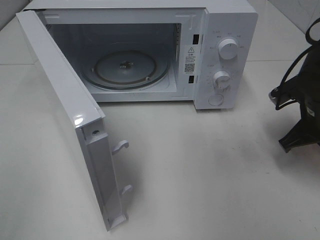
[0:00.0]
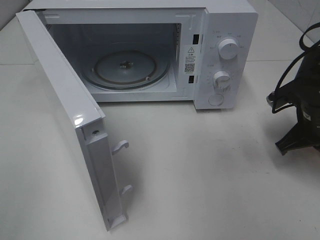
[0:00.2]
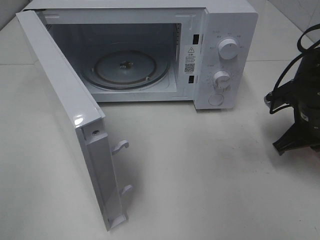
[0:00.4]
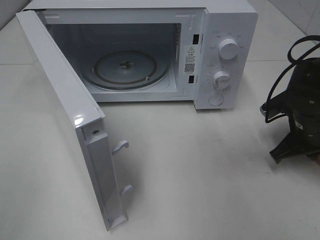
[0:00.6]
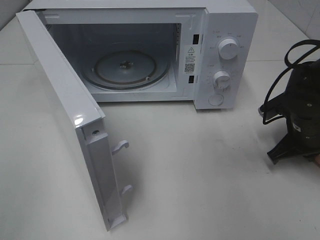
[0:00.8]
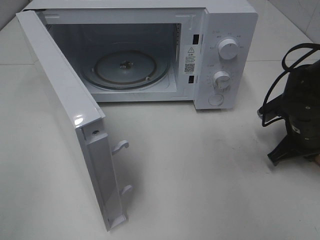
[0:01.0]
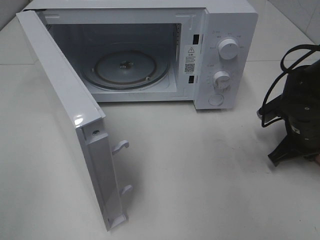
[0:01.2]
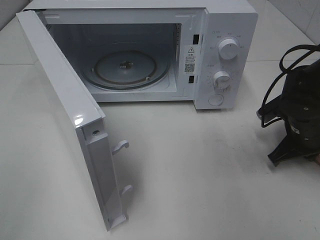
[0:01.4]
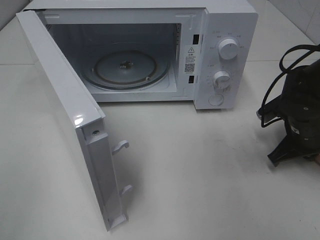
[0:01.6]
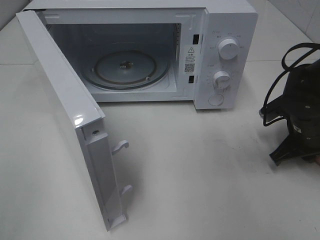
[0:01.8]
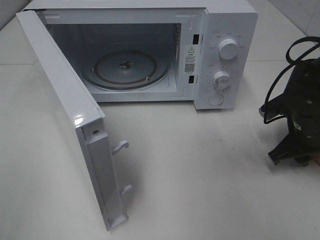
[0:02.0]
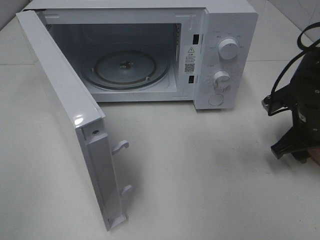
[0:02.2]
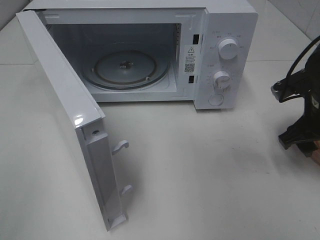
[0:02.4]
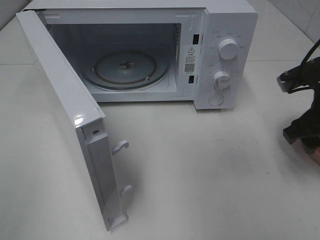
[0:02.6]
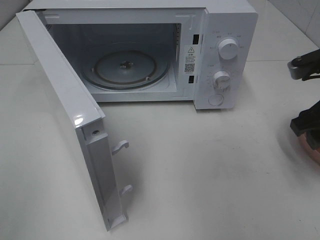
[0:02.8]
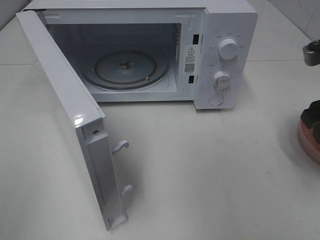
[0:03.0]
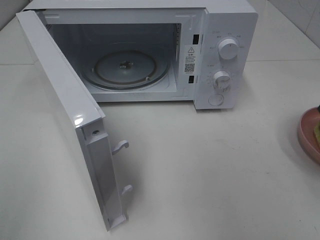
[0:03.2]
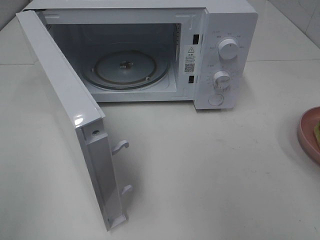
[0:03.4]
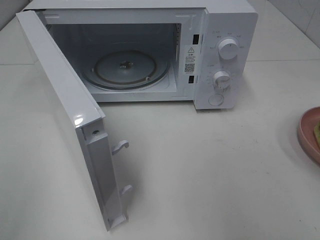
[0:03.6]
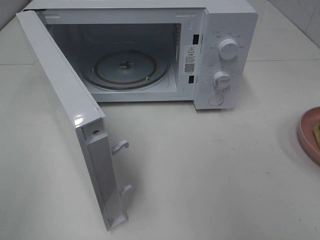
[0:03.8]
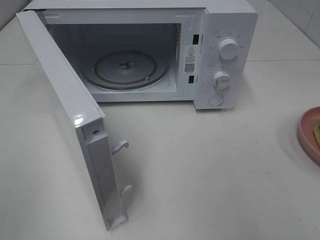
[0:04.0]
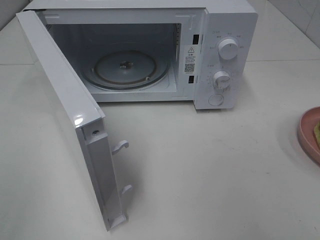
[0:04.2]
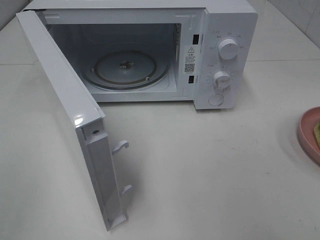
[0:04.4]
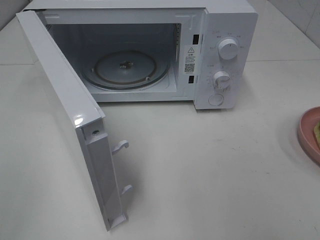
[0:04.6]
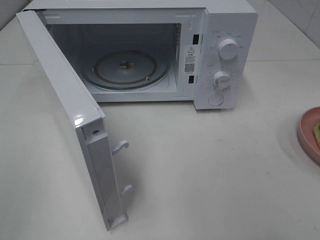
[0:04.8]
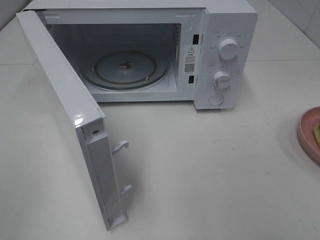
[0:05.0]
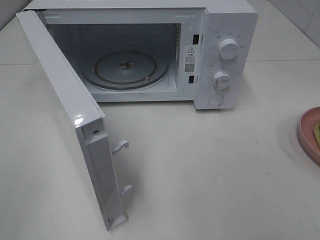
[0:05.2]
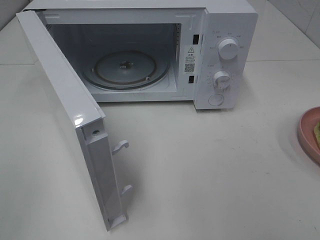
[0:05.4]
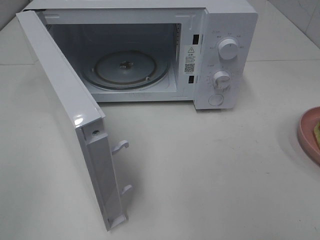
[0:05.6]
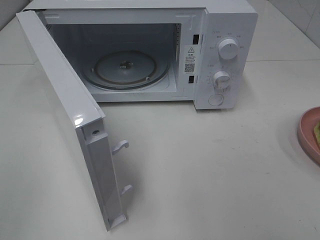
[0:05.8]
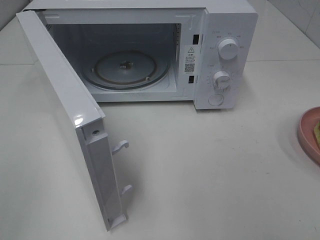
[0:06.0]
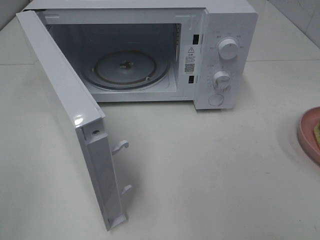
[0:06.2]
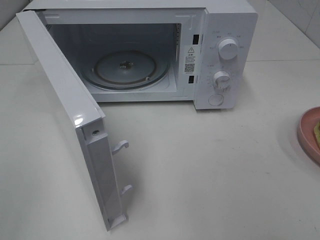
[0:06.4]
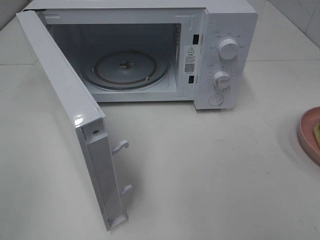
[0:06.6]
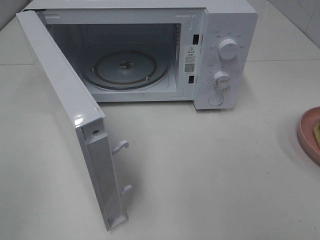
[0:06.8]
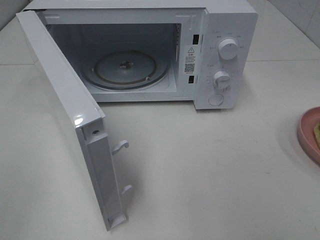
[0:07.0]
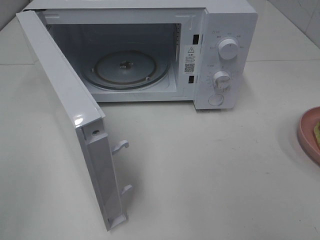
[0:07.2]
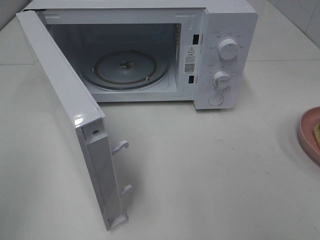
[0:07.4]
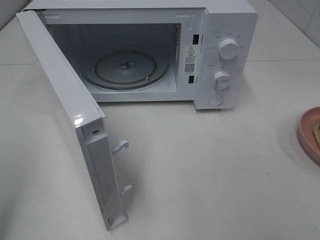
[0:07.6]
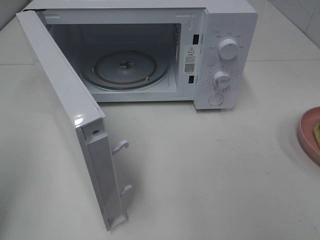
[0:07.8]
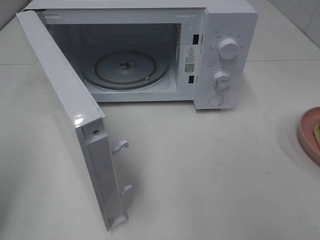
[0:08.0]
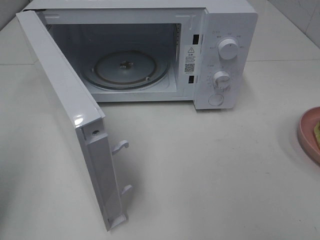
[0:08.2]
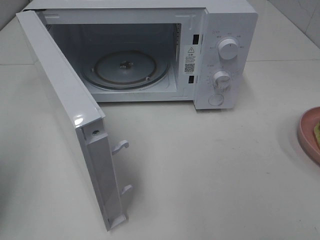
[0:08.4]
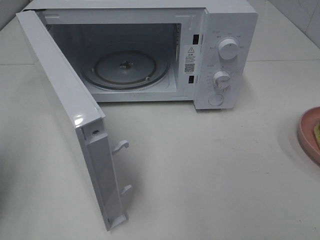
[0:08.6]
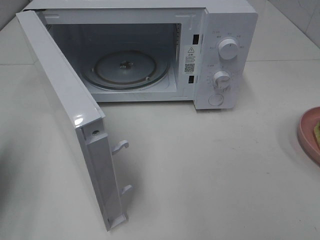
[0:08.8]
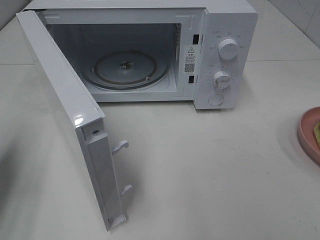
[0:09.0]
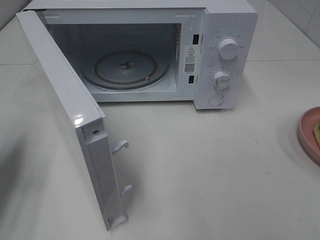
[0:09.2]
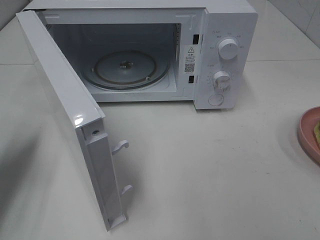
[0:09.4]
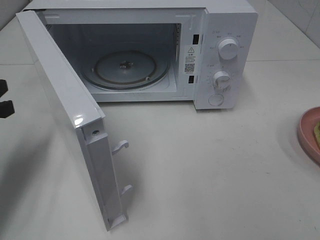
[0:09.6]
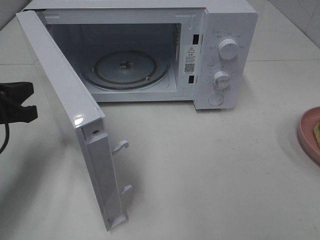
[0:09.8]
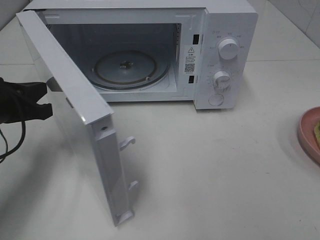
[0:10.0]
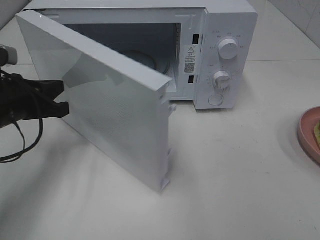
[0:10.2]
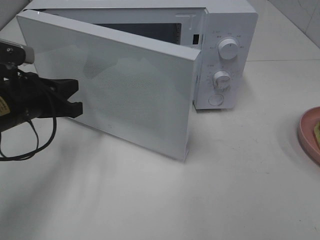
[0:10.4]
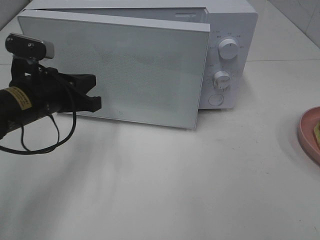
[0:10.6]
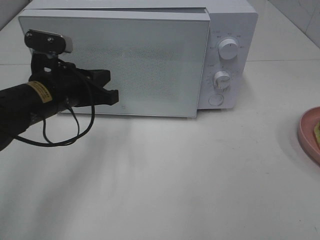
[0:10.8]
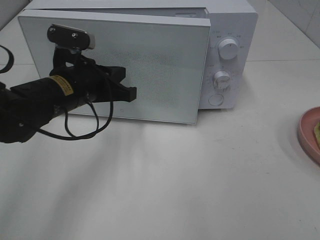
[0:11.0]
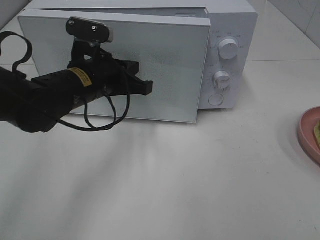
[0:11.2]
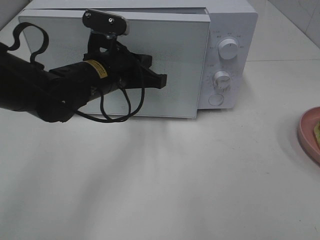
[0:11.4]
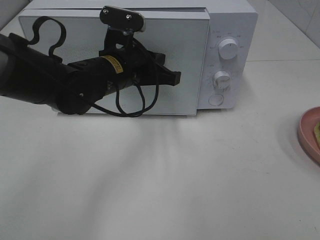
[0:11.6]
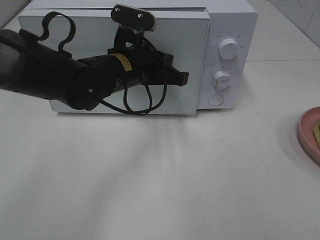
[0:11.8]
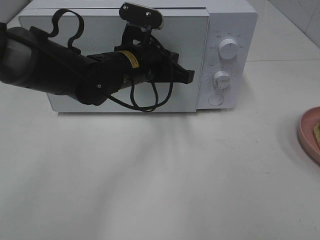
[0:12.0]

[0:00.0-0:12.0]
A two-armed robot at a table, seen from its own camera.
Task of the whole recording: Heat Sandwich.
Step, 0.0 to 2.4 s: Right hand: place the plate on the table.
0.0 to 1.6 s: There are only small adjustments of the grippers.
1.6 to 3.0 s: The right gripper travels upward and backward by about 20 cm, and opens.
3.0 to 4.4 s: The right gripper shifts some 20 cm backward.
7.6 to 9.0 s: The left gripper is displaced forward and downward by approximately 15 cm, and closes its fingers.
9.0 to 10.4 s: The left gripper shifts about 15 cm to the right and forward.
10.4 to 12.0 s: The left gripper is displaced to the right by some 15 cm.

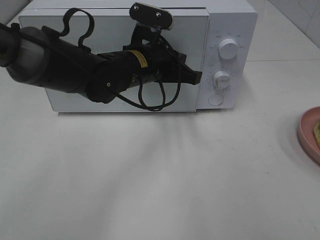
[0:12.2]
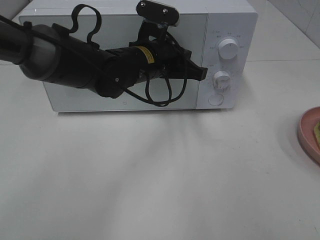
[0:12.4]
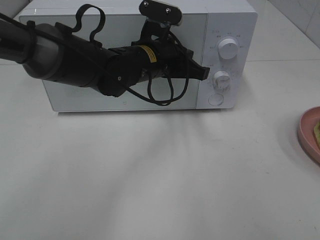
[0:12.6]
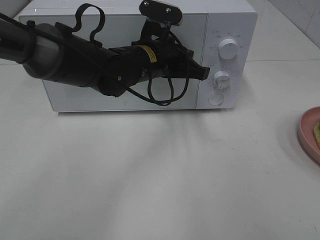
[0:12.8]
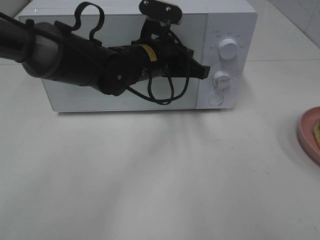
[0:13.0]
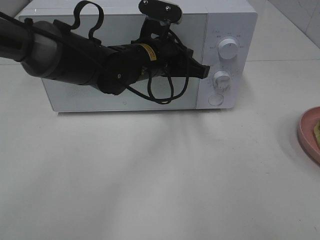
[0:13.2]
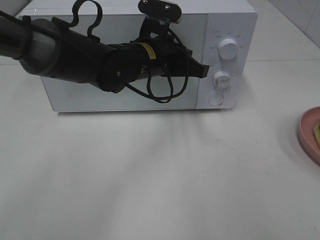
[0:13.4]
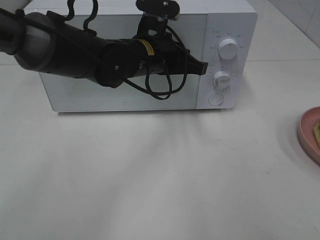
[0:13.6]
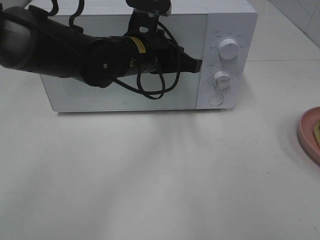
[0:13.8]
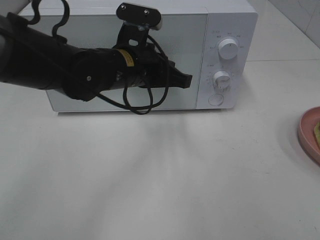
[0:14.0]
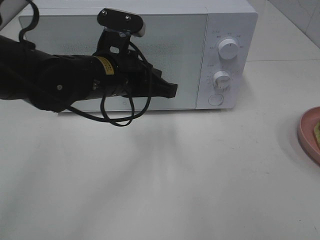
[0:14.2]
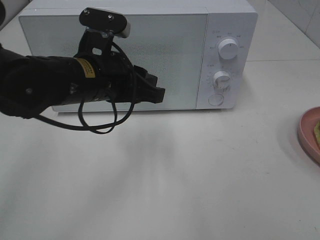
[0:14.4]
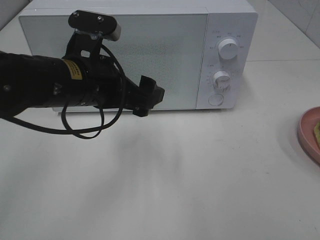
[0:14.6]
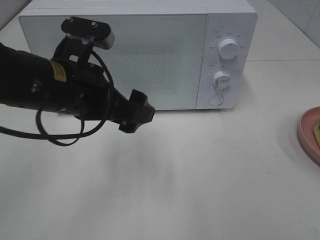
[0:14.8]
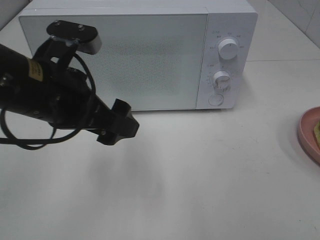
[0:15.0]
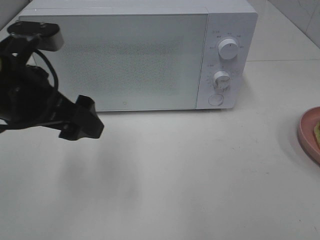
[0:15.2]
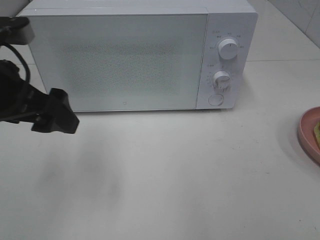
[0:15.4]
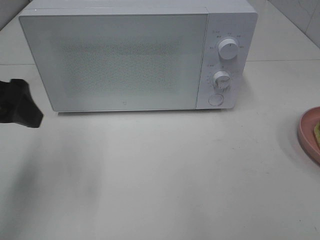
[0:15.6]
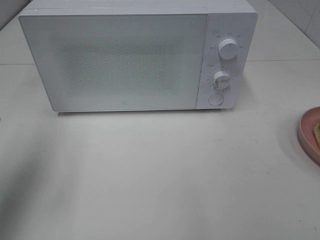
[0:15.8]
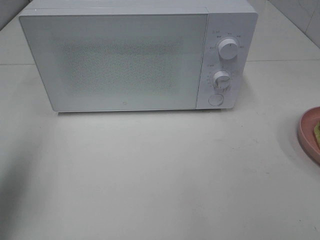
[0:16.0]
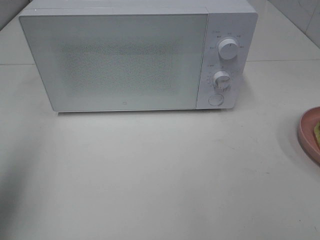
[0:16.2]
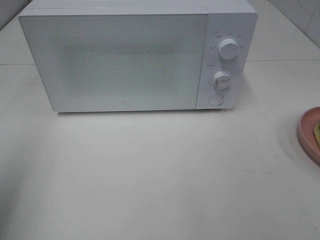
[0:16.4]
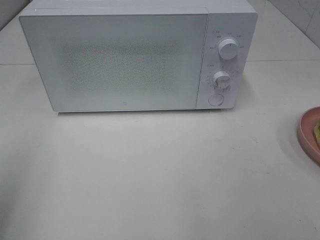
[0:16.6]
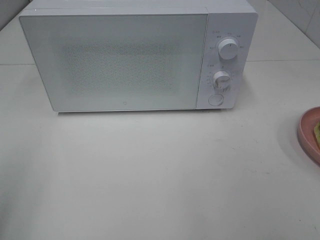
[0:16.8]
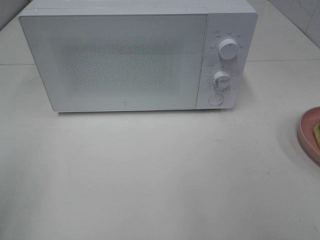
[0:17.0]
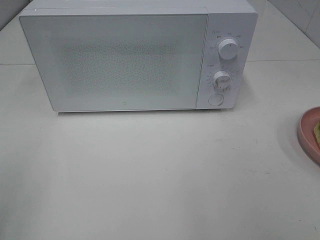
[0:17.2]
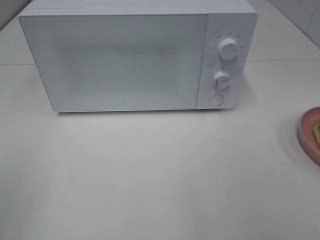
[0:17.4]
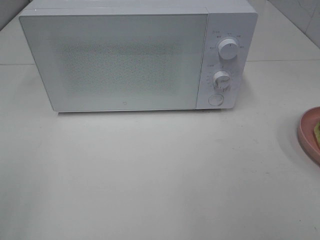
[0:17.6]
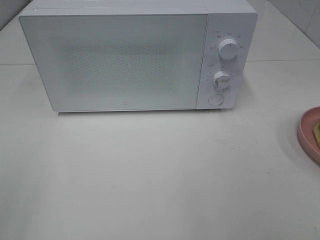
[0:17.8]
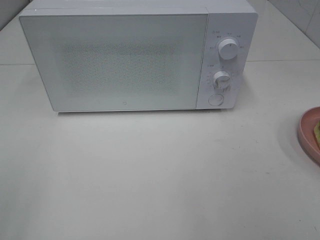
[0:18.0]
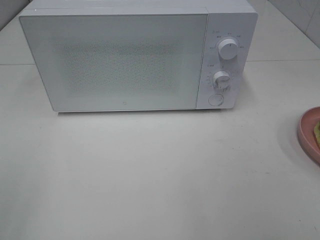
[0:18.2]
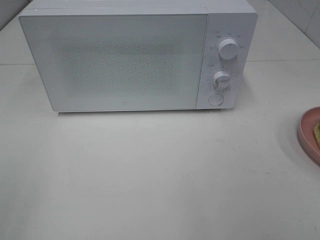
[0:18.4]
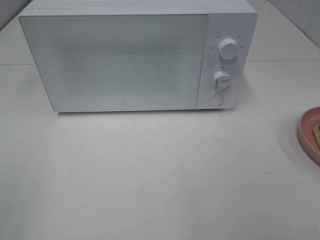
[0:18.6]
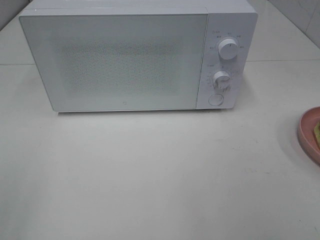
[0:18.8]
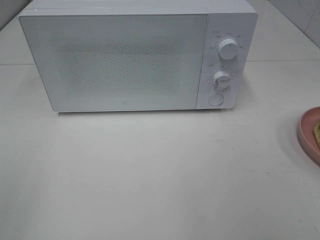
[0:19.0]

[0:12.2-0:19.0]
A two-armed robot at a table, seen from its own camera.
Task of the whole recording: Heat Sandwich.
12.2 to 13.6 s: The grippers move only a little.
13.6 to 15.0 s: The left gripper shifts about 20 cm backward and to the left, and opens.
15.0 to 16.2 s: The left gripper heads to the left and upward, covering approximately 20 cm.
16.2 to 17.6 s: The left gripper moves backward, roughly 15 cm.
17.6 to 19.0 s: Both grippers stay about where they are.

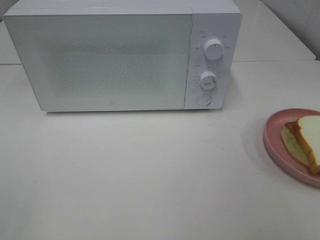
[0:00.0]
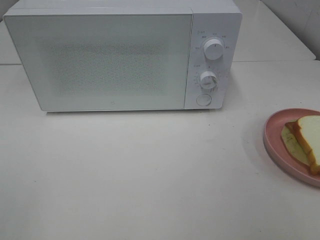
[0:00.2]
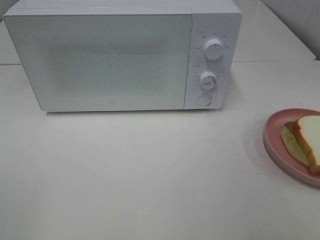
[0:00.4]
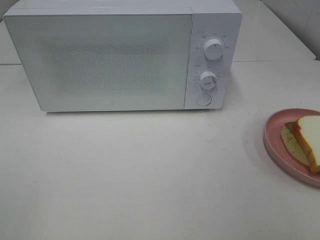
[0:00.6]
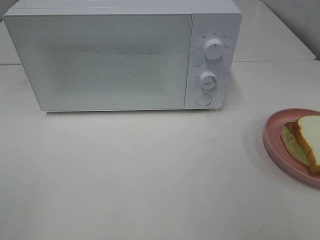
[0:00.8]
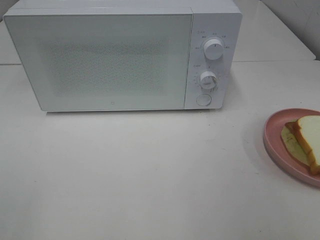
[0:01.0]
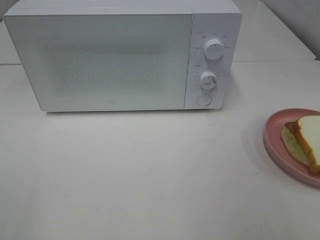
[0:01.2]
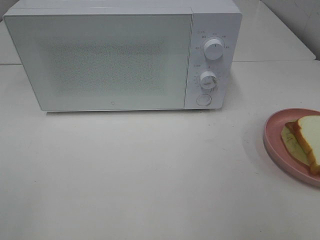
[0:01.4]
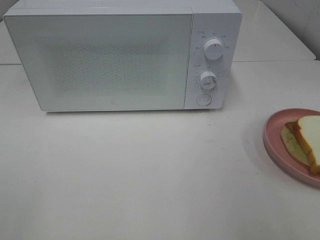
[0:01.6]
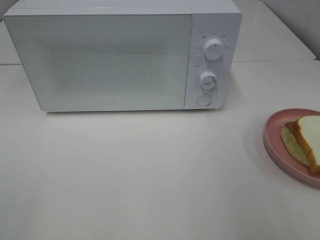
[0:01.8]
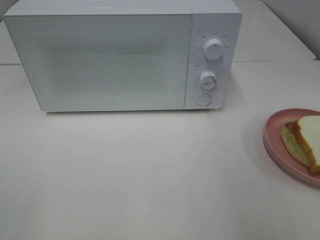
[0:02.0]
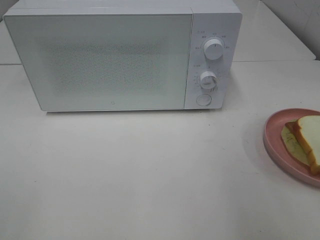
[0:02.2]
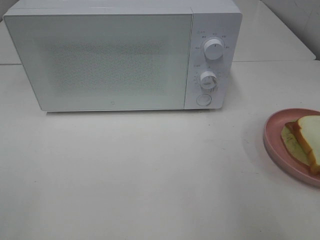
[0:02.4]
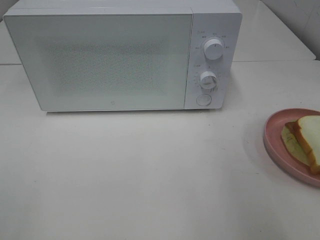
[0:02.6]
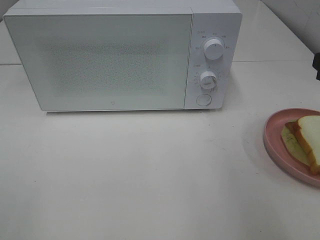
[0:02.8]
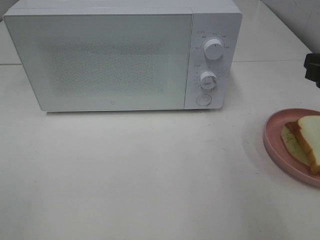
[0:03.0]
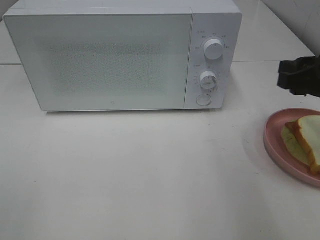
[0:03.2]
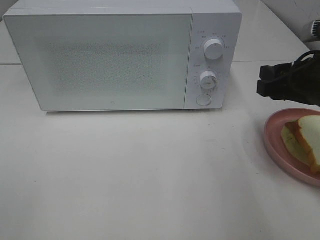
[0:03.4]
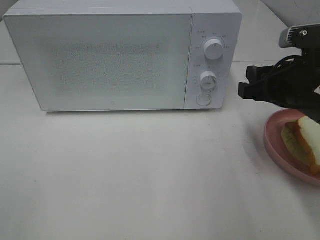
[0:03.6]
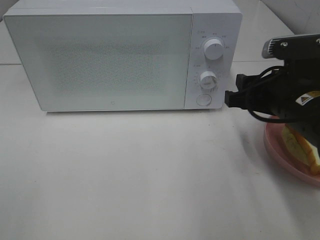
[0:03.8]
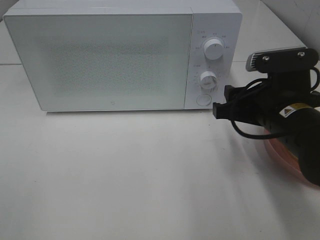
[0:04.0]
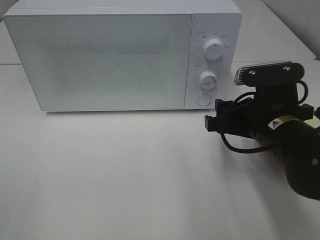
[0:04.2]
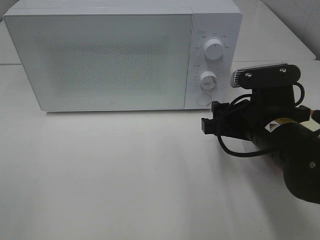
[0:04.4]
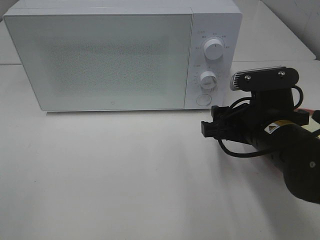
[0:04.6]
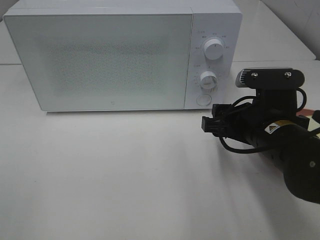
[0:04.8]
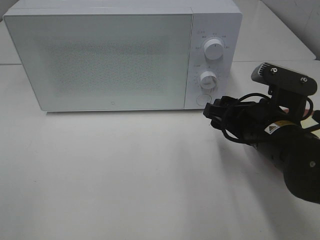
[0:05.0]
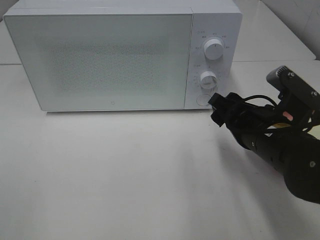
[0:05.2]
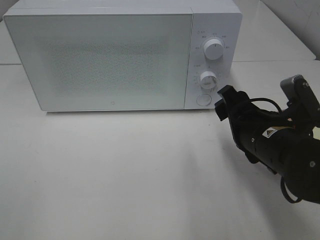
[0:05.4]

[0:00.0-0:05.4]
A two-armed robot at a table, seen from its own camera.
Task of the whole recording: Heat Sandwich.
2.8 to 4.0 s: The right gripper travels to the left and downward by some 15 cm.
